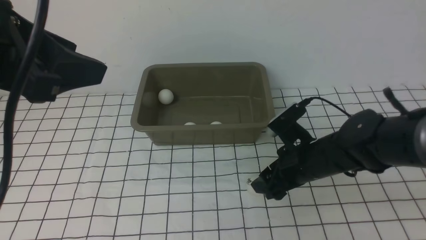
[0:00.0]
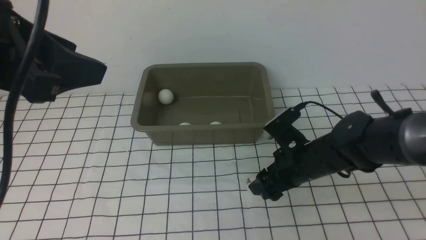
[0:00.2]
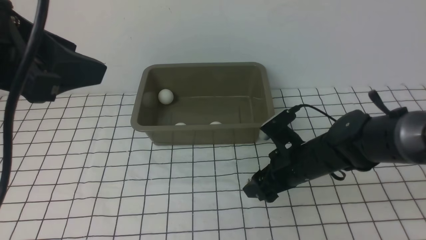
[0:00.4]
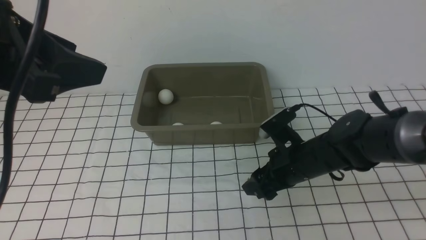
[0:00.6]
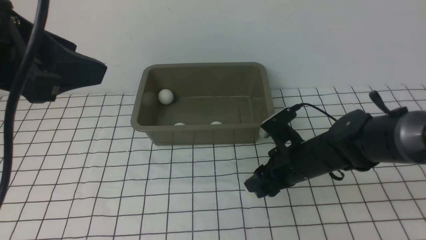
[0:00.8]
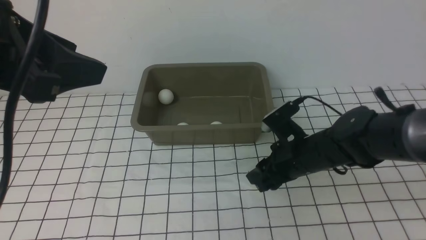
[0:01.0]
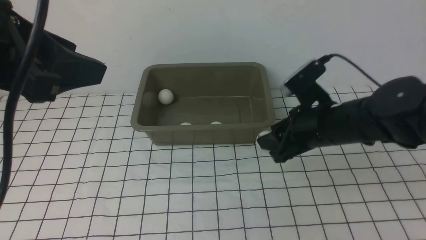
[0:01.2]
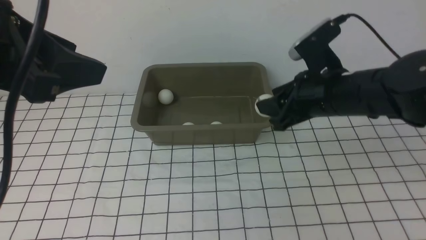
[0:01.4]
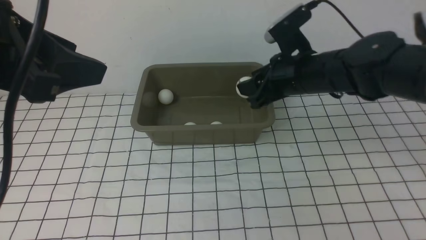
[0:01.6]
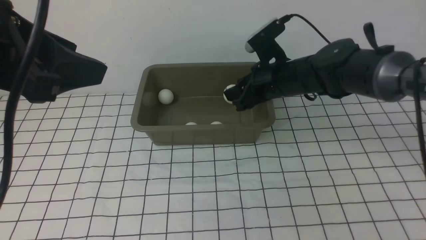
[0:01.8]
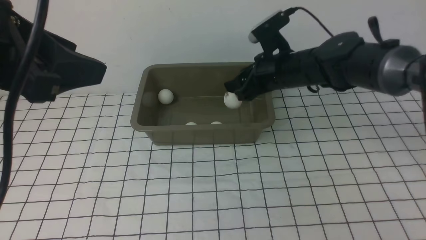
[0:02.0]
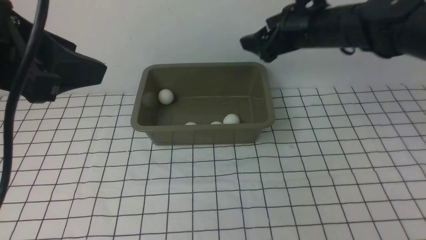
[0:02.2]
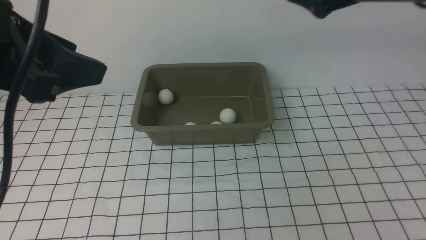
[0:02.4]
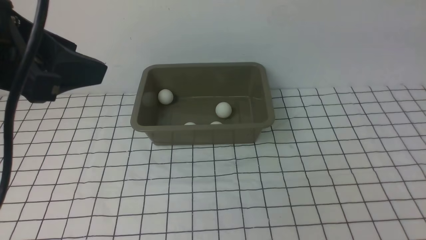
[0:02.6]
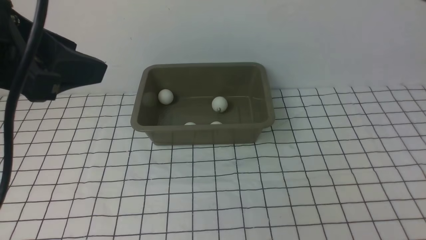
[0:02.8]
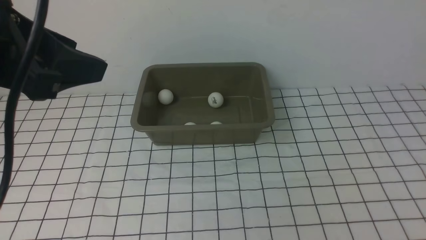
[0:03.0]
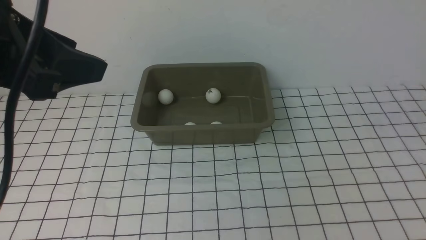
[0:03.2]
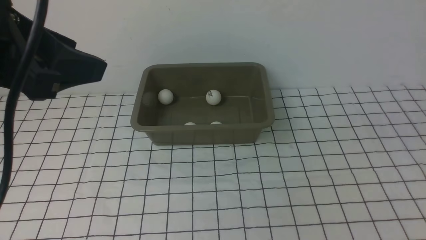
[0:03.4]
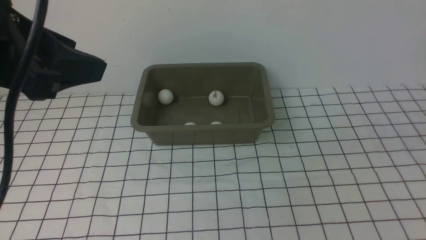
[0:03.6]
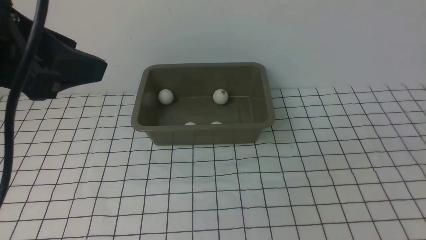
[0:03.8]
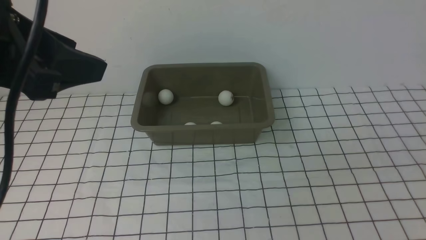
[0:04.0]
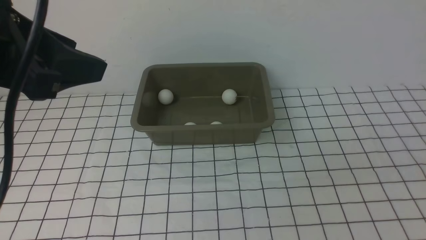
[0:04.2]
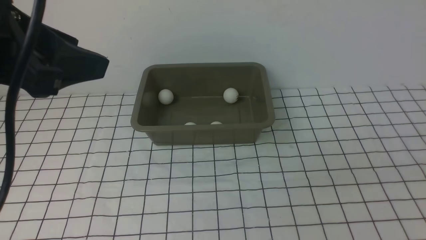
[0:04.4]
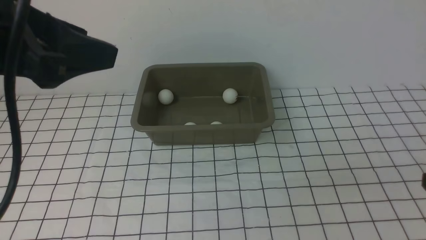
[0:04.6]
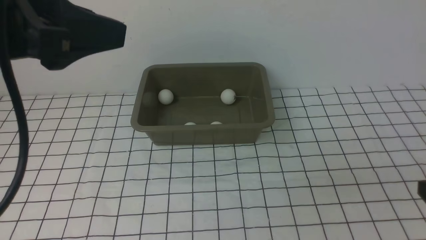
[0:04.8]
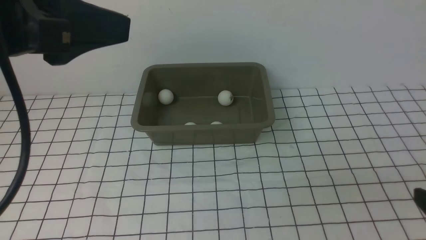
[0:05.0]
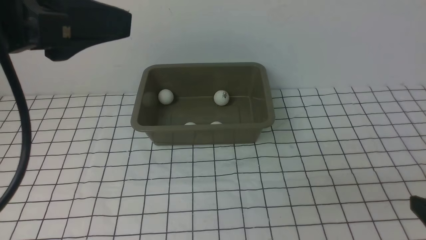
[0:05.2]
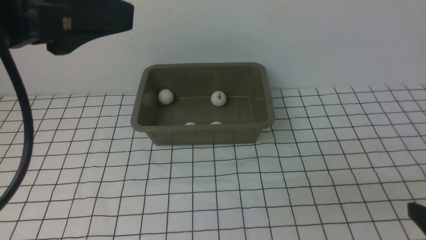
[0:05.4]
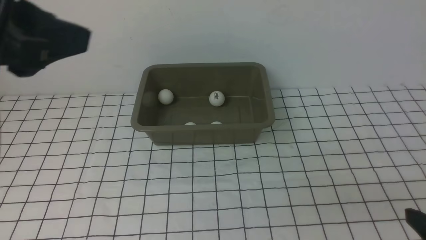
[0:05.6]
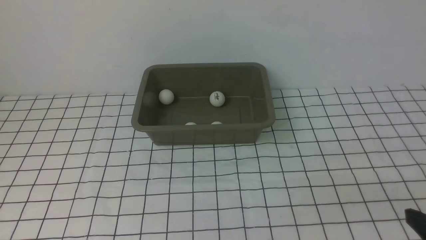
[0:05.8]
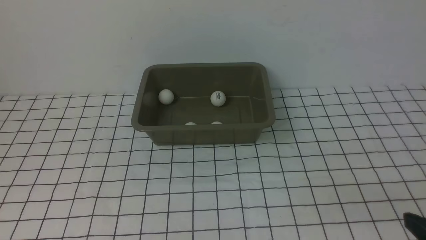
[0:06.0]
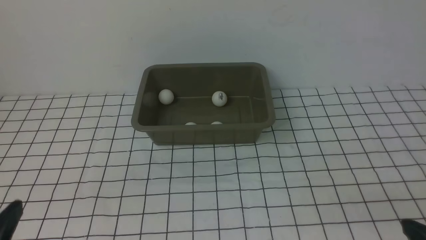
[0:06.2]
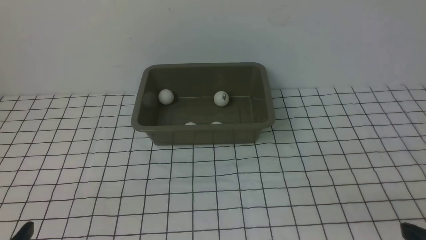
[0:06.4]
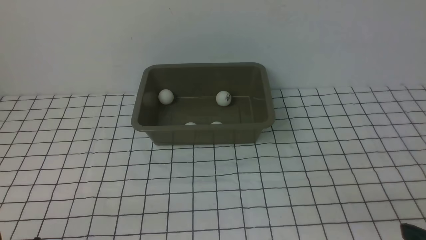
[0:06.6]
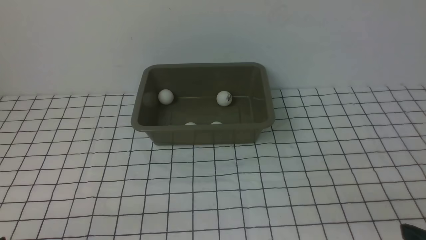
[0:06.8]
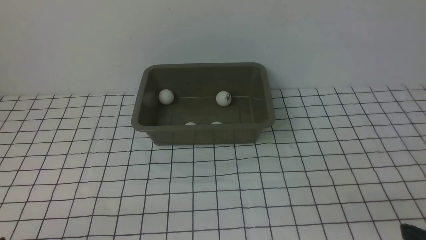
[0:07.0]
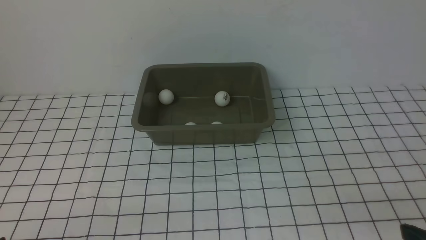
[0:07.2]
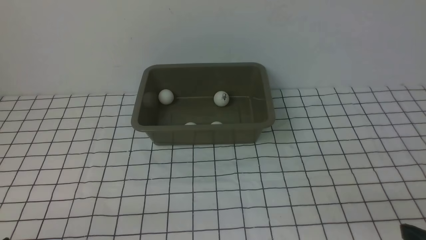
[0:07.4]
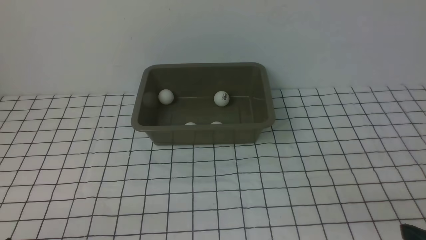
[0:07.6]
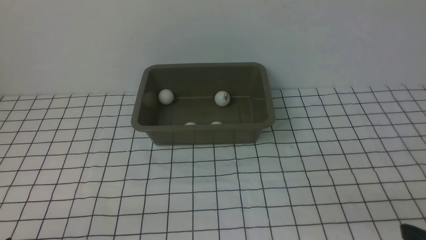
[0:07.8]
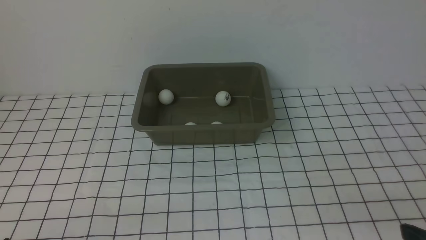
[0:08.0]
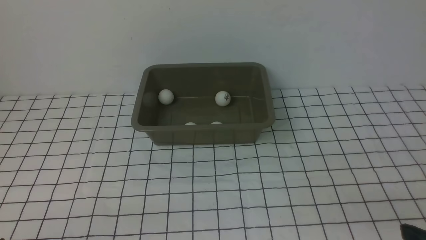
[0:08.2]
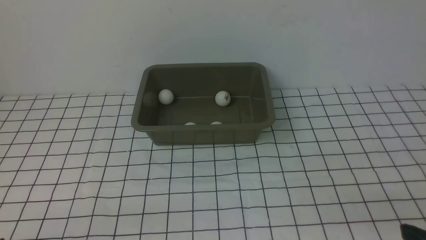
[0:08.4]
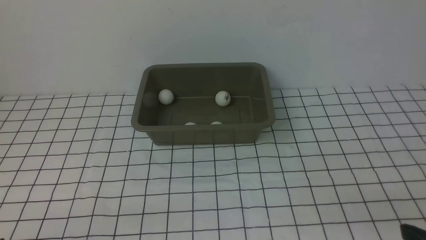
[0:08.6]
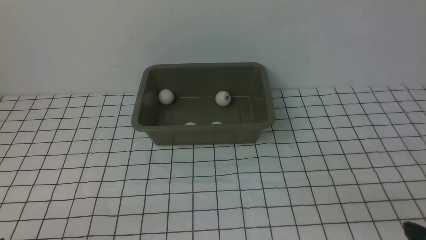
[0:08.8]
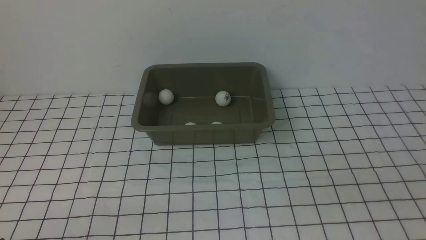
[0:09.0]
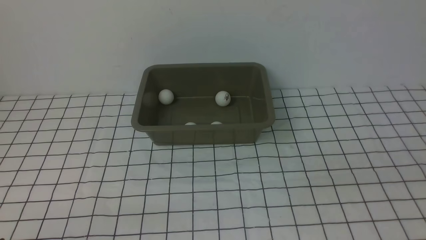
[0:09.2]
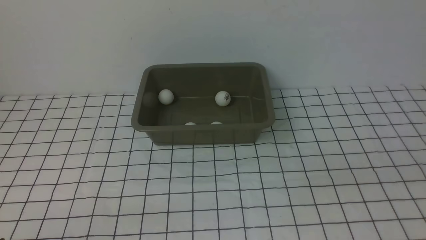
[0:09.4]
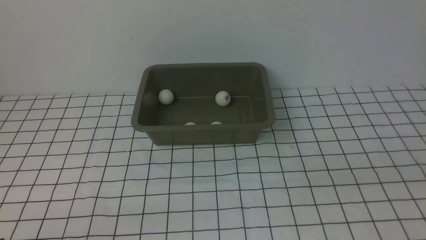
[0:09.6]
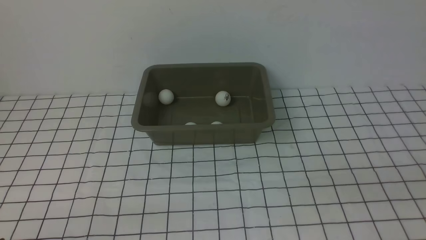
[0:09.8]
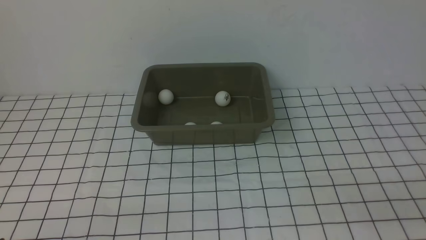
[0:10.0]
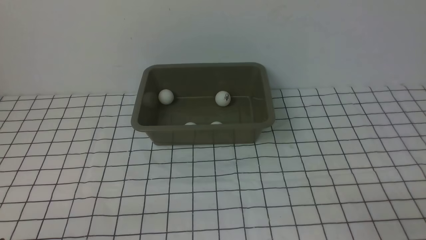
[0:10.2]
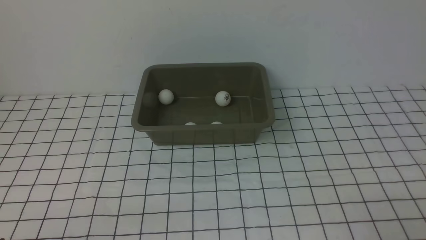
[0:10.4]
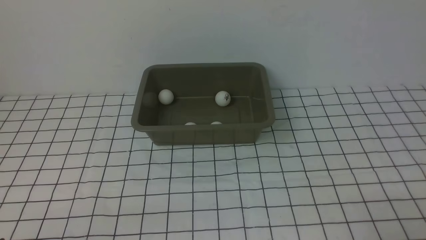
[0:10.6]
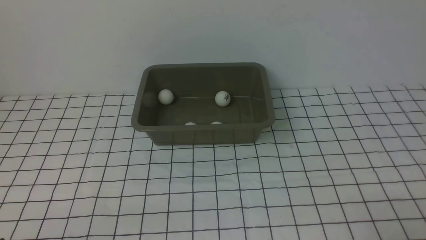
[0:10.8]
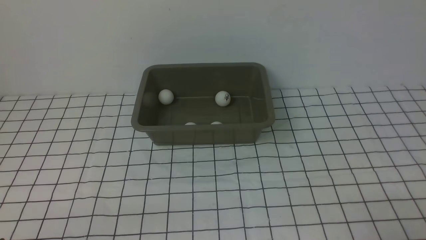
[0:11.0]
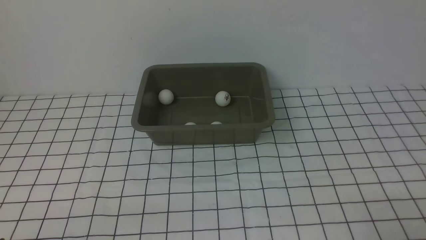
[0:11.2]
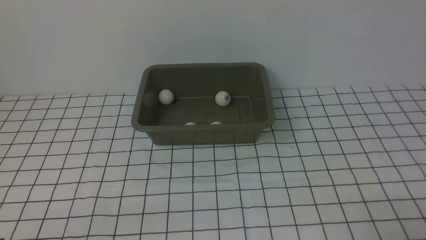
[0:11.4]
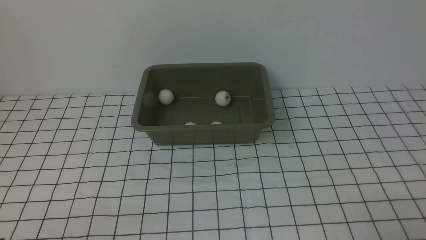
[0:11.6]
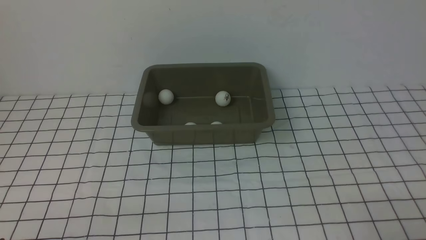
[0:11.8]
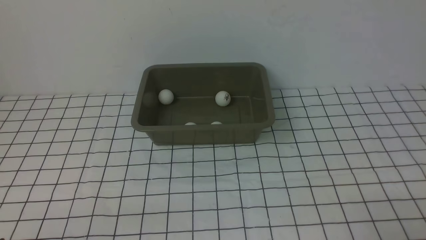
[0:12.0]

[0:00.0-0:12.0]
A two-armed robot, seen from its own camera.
Step, 0:01.4 to 0:02.0: use the right arm to put the table tennis ball into the box.
0:00.0 to 0:01.6: The right gripper heads upward and forward, covering about 15 cm, and closes.
0:01.6 to 0:03.0: The right gripper shifts approximately 30 cm backward, to the right and upward, and opens.
0:04.4 to 0:06.0: The left gripper travels backward, downward and to the left by roughly 15 cm.
0:10.4 to 0:12.0: Neither gripper changes place.

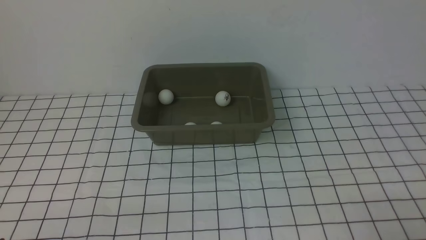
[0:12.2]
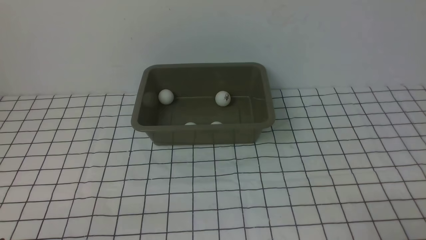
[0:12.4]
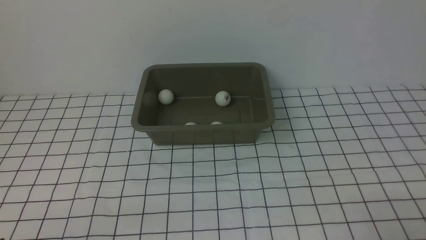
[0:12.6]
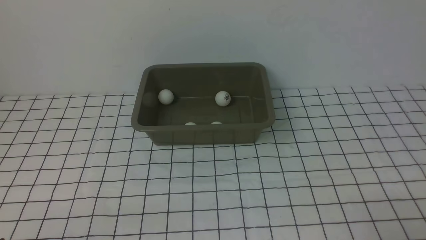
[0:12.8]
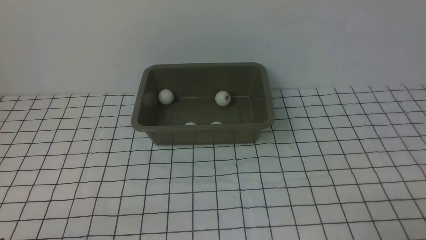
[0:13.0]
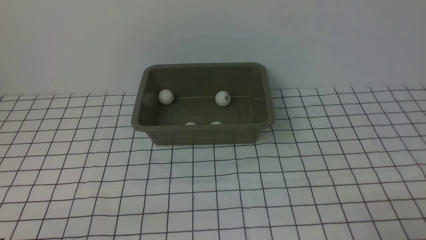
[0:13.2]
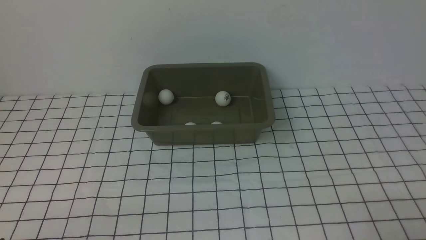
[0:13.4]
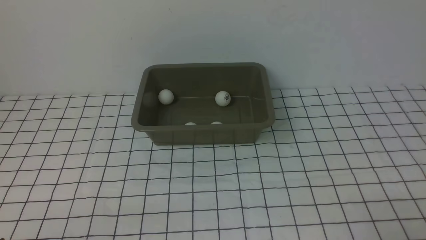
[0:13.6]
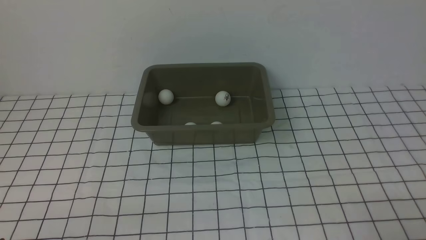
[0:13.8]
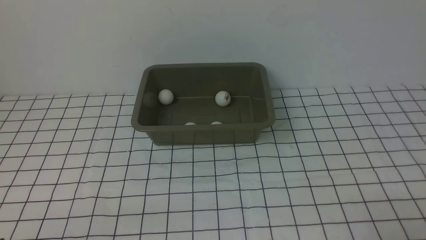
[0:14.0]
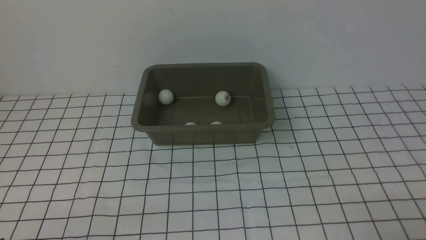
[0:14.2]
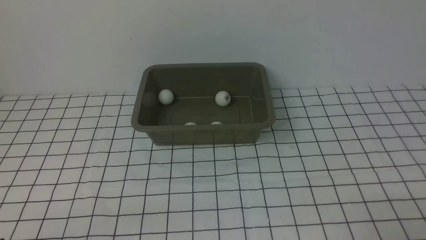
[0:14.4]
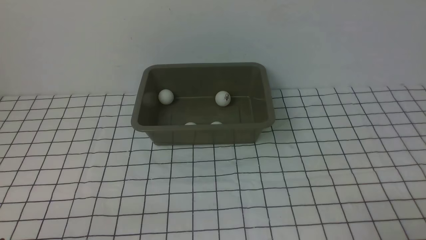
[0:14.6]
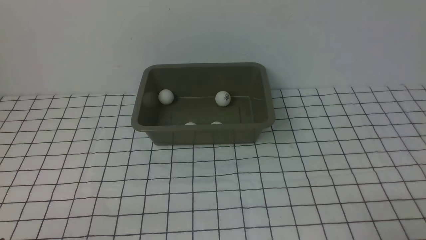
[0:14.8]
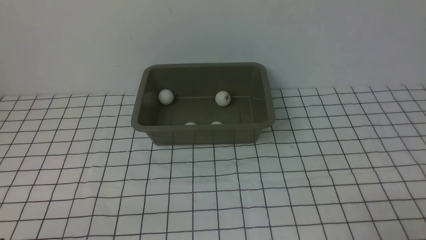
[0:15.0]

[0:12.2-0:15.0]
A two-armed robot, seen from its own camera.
0:12.2 to 0:15.0: Both grippers stay put.
